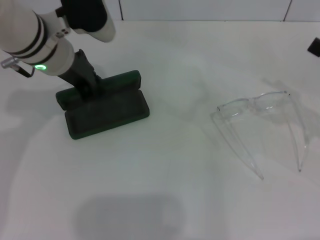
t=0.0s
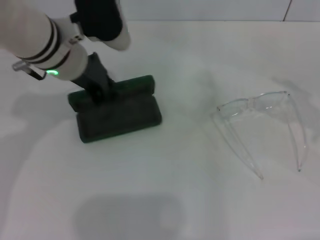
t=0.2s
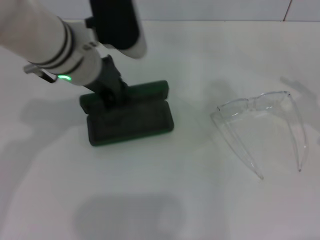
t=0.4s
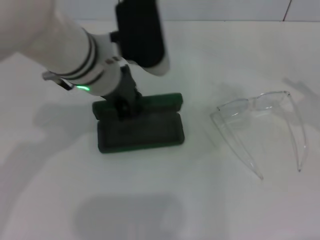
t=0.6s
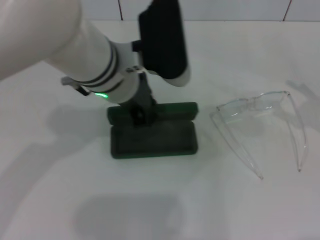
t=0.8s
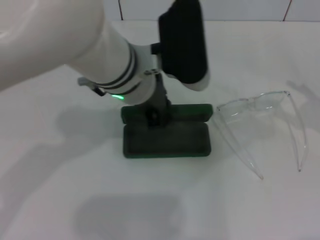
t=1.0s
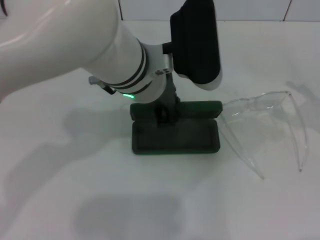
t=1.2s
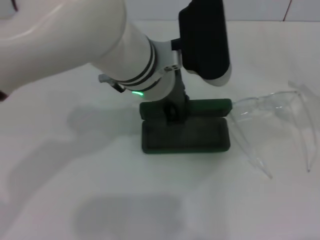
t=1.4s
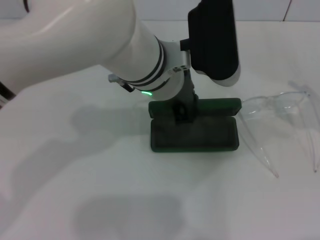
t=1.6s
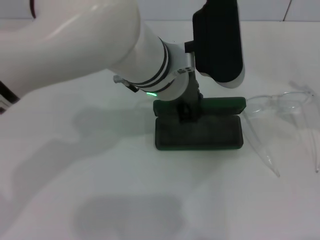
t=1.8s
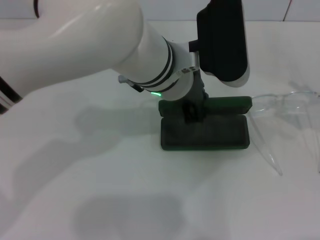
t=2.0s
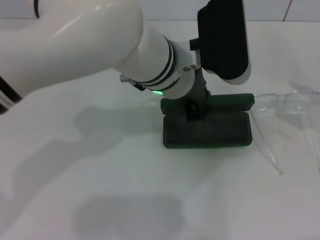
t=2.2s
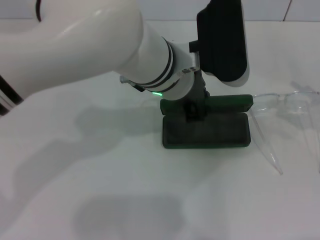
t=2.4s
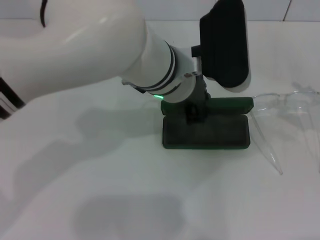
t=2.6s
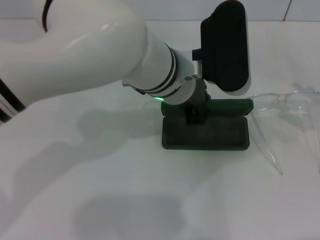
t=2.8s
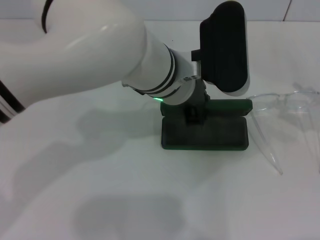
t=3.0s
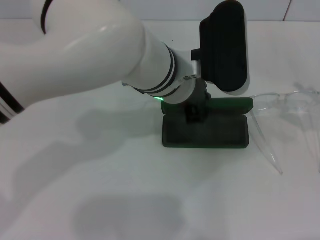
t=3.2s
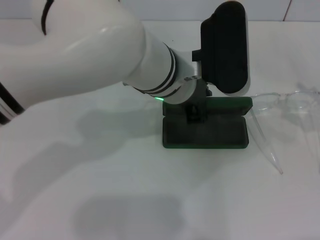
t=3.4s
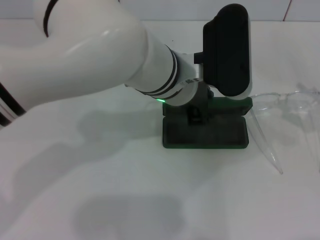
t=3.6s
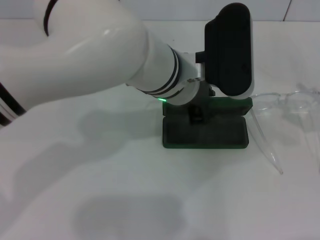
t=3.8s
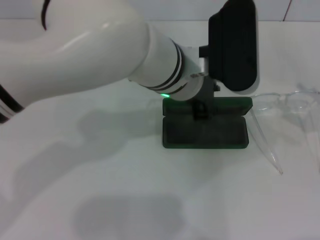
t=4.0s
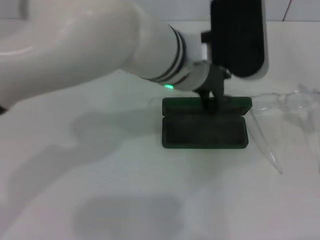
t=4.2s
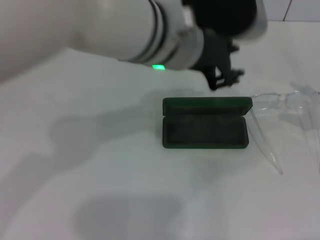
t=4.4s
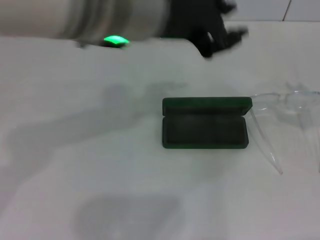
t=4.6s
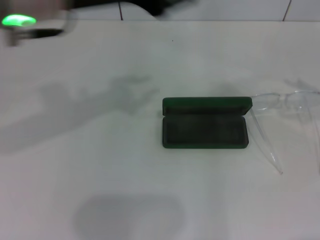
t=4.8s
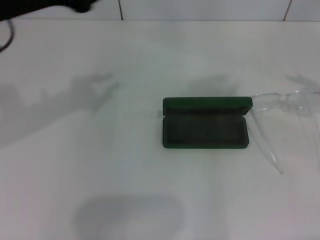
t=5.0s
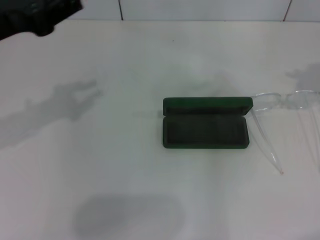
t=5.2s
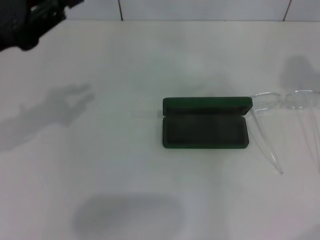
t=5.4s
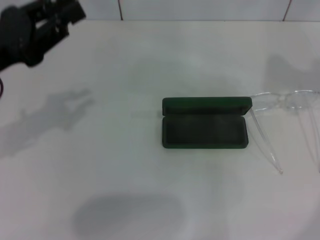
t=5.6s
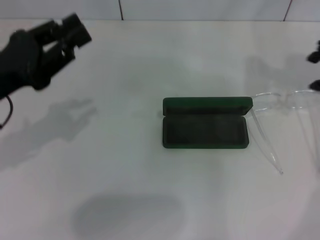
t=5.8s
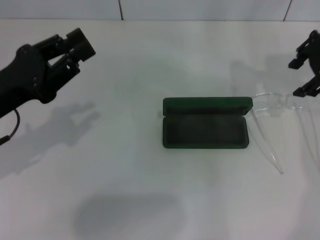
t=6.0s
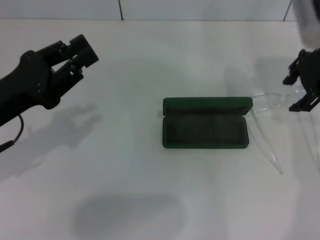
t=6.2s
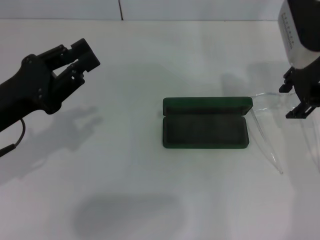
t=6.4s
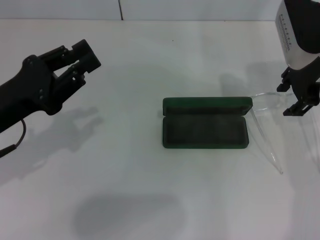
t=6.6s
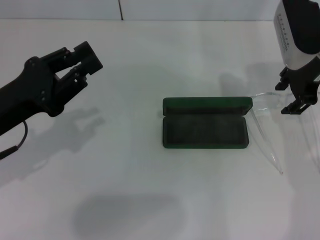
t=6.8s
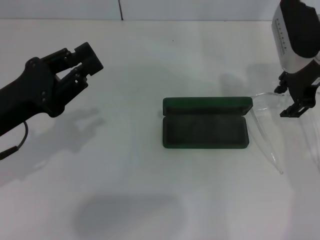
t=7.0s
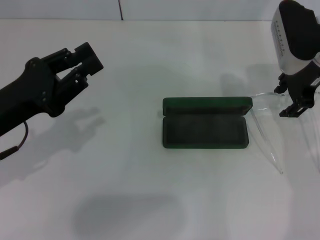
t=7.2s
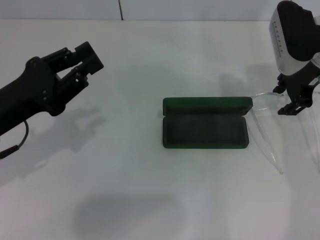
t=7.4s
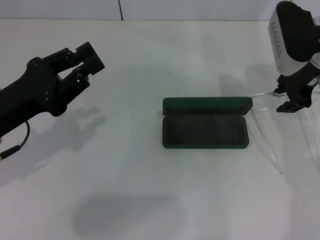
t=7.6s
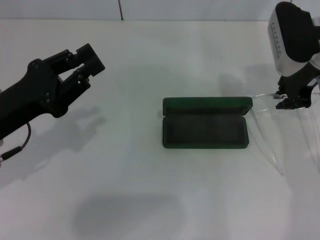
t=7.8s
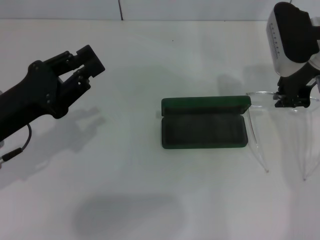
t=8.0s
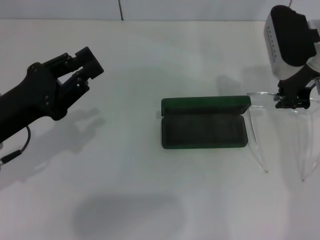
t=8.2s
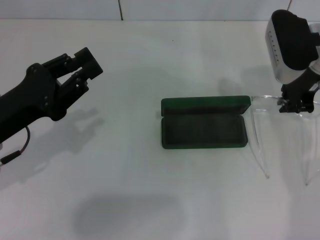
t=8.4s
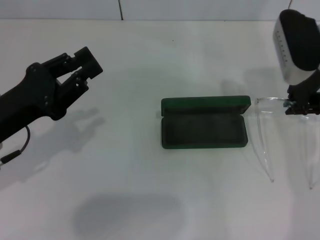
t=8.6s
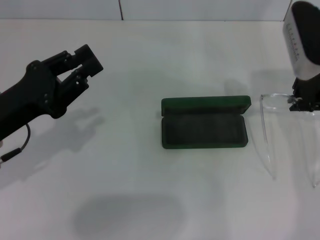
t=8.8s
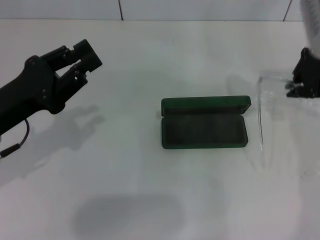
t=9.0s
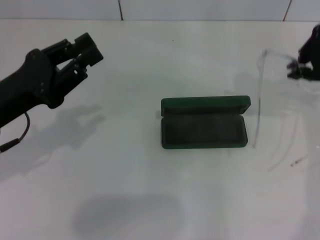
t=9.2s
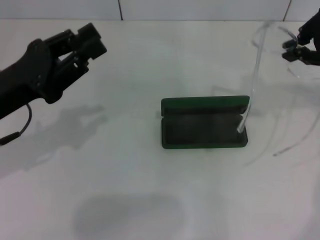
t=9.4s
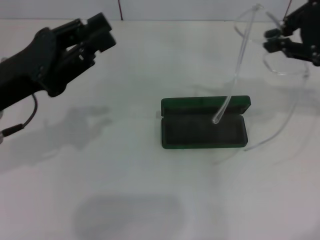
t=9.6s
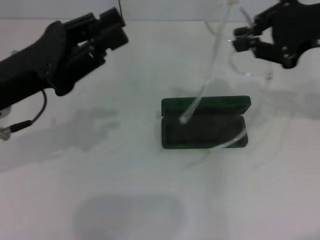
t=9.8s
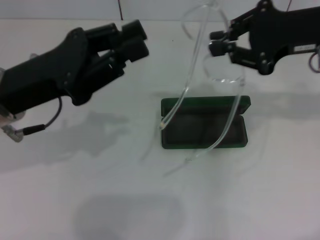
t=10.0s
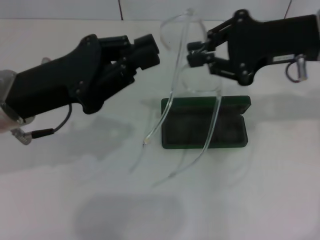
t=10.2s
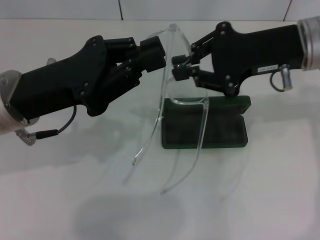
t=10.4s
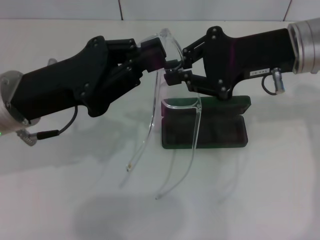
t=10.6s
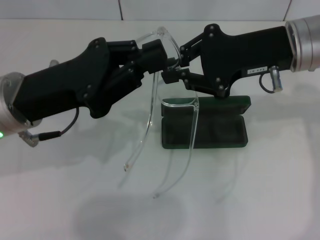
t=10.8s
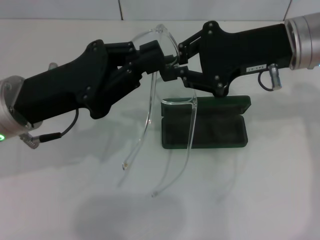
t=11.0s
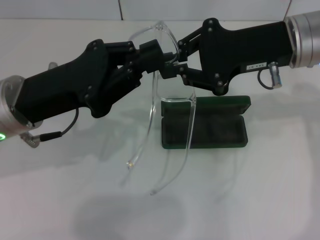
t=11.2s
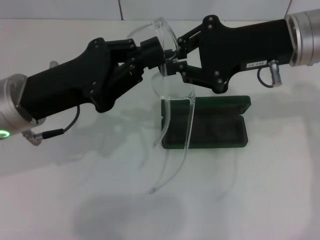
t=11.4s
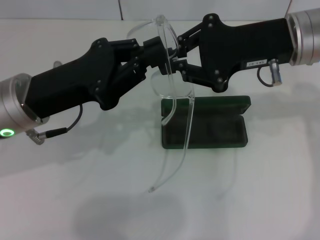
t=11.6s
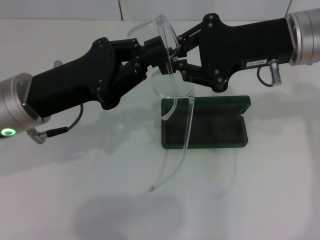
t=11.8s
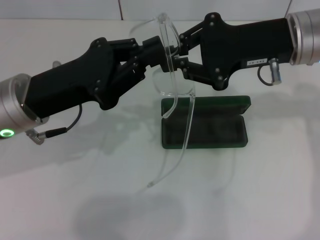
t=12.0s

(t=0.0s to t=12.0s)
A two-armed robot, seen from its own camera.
Step, t=0.0s - t=3.8s: Place the glasses case in the center of the table with your left hand.
Step, t=4.0s - t=7.8s: Grab the eyeglass frame with your right hand.
t=0.0s - t=1.6s: The left gripper moves to the right, approximately 15 cm.
t=1.6s - t=3.0s: There are only small adjustments of the grippers.
t=3.0s - t=4.4s: The left gripper is displaced upward by some 5 cm.
t=4.4s - t=6.0s: The right gripper moves forward, to the left and upward, about 25 cm. Meanwhile the left gripper goes roughly 25 cm to the left and downward.
t=6.0s - t=7.6s: The right gripper is displaced downward by approximately 5 cm.
t=7.6s - t=9.0s: The right gripper travels upward by about 5 cm, and closes its fingers.
t=9.0s - t=10.4s: The left gripper moves to the right, some 5 cm, while the right gripper ends up some 5 cm from where it was.
t=10.4s - t=12.0s: There are only small adjustments of the grippers.

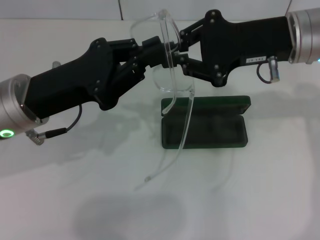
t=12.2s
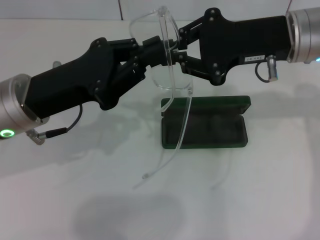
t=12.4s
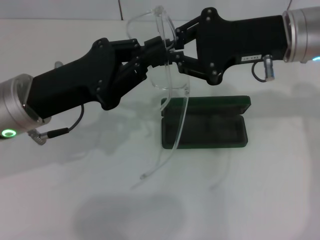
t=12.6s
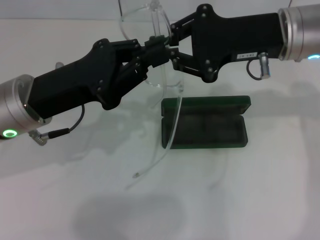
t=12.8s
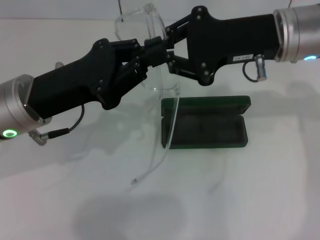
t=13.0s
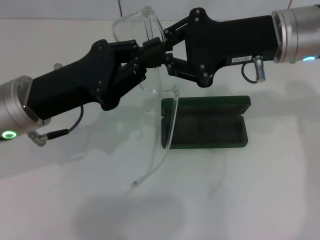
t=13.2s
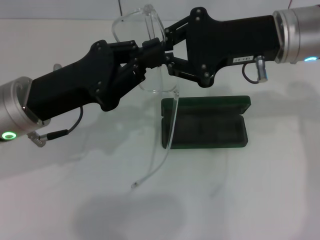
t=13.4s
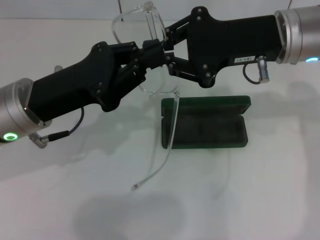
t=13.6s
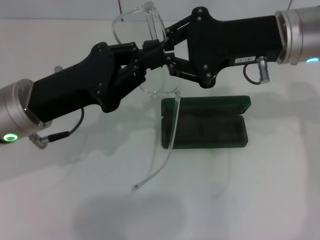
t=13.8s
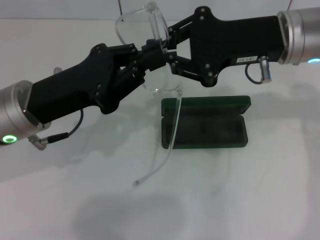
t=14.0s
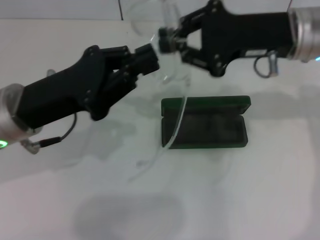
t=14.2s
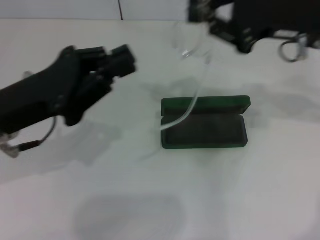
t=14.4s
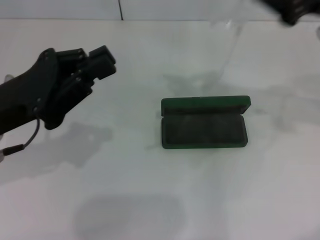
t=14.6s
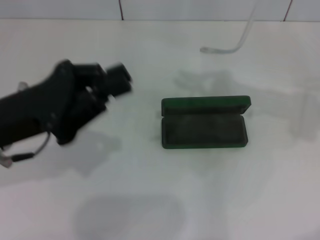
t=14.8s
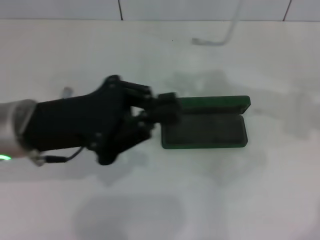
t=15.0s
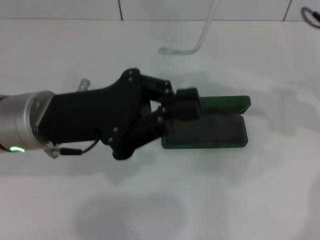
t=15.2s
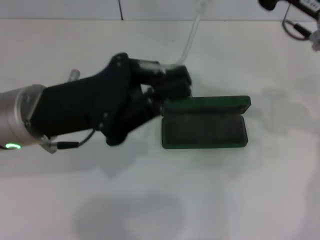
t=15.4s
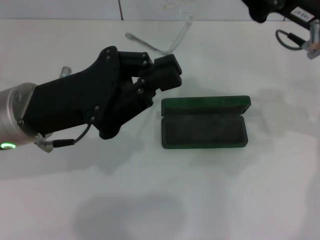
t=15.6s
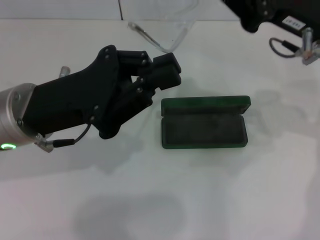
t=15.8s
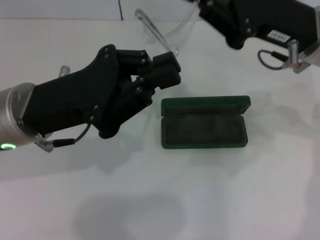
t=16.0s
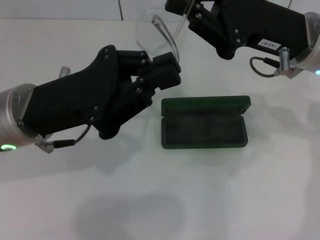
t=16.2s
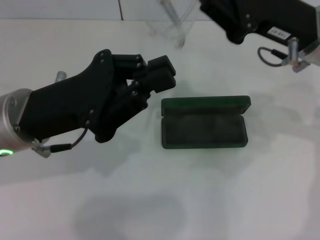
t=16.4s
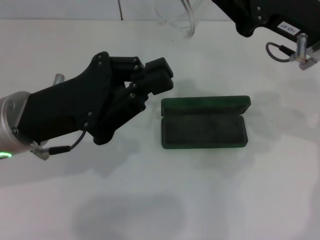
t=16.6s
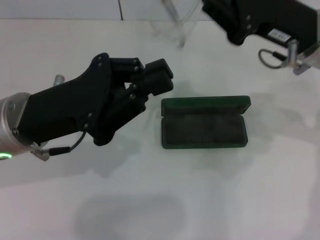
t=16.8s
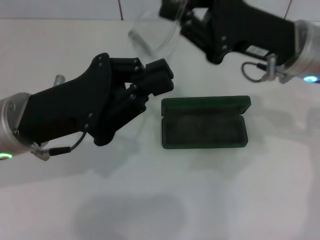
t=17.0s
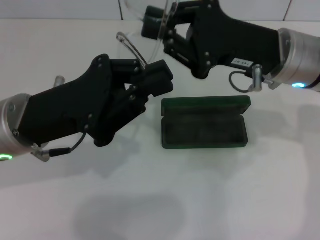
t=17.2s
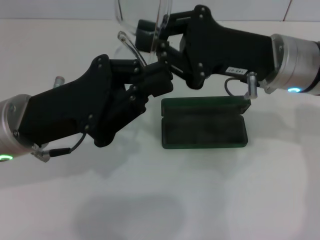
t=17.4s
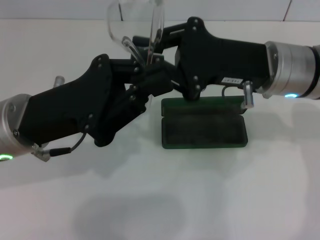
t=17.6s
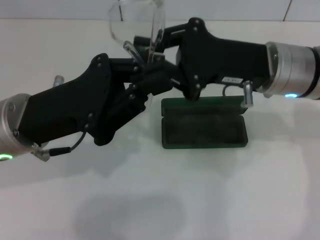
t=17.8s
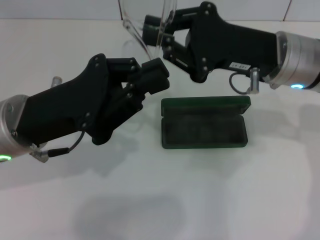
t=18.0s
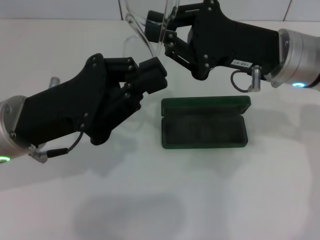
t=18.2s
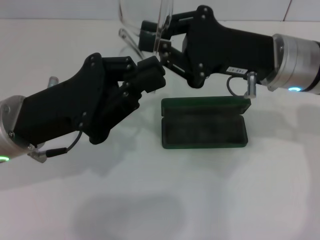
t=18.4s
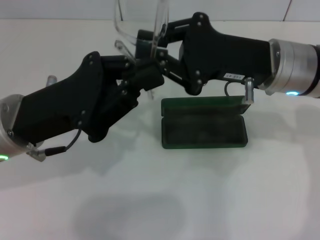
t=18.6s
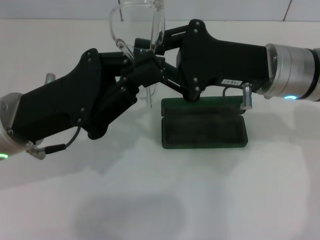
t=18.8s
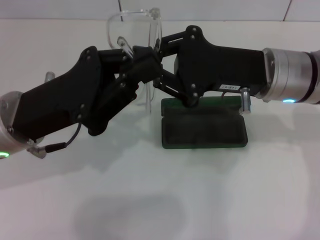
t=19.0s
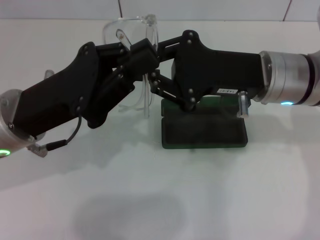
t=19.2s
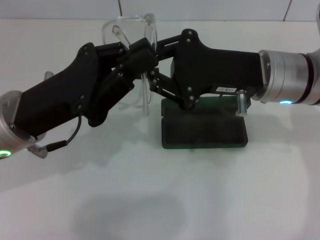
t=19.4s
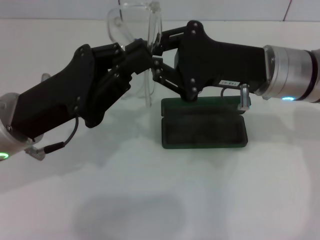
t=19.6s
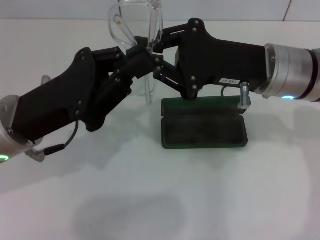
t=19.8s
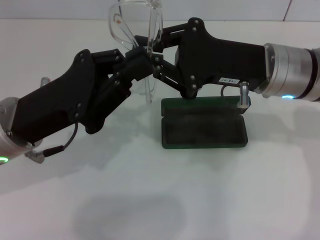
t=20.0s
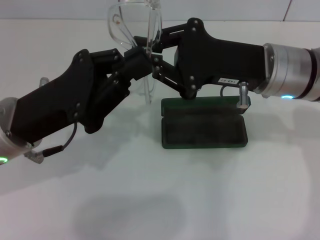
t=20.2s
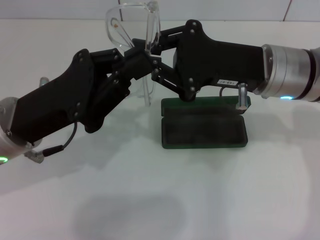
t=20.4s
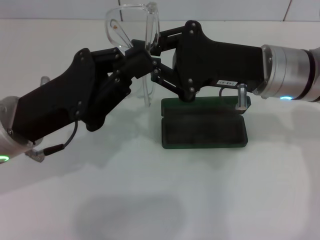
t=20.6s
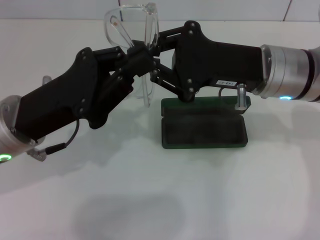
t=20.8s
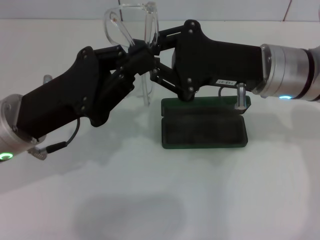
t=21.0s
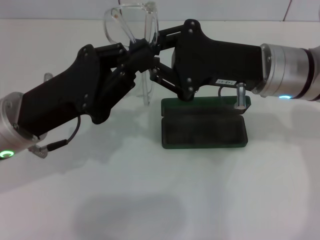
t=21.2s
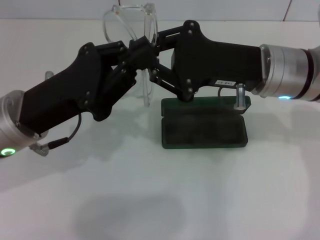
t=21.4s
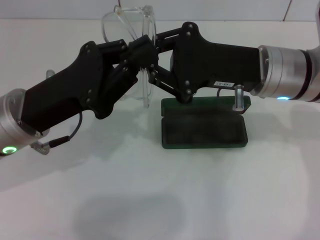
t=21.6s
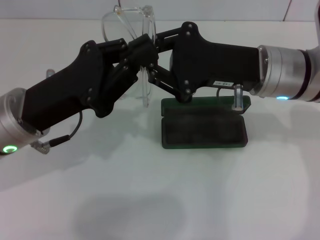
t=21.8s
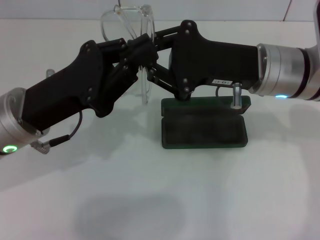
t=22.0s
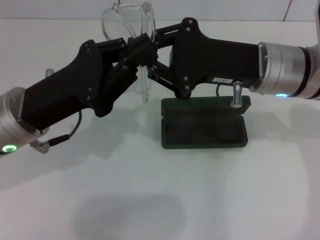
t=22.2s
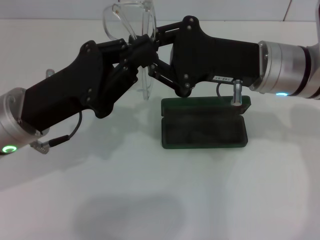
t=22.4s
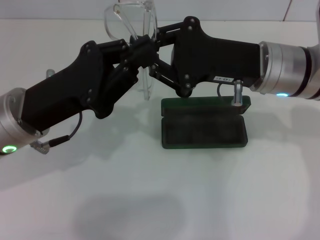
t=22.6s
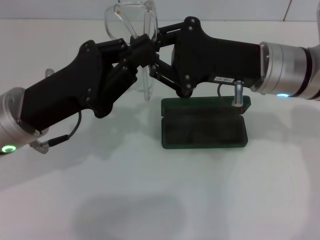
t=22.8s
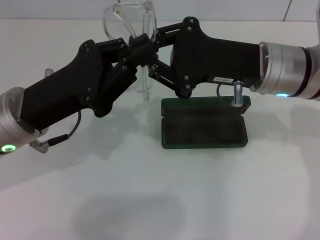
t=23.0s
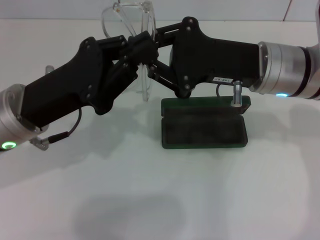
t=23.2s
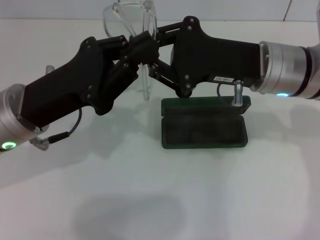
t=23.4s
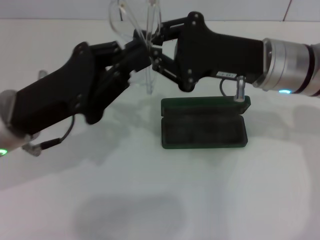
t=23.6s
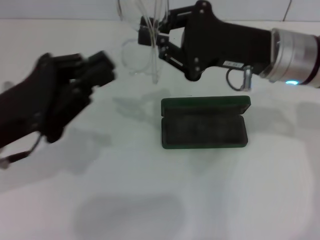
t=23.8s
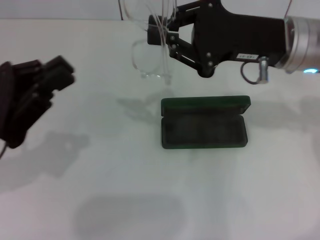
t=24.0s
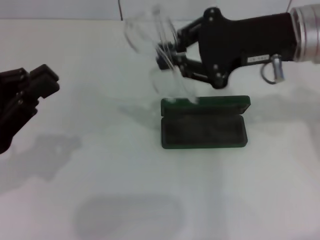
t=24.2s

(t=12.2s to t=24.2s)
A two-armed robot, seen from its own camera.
Step, t=12.2s - t=23.6s: Fold the frame with your left hand.
t=12.2s - t=13.8s: The grippers stay close to where they were, moving slightly.
t=13.8s - t=15.2s: The right gripper is displaced to the right by roughly 5 cm.
t=15.2s - t=16.6s: The grippers stay close to where they were, moving slightly.
t=16.6s - t=19.8s: The grippers make only small movements.
t=19.8s - t=22.6s: Neither gripper changes place.
t=22.6s - t=24.2s: The left gripper goes some 10 cm to the left, while the right gripper goes some 5 cm upward.
